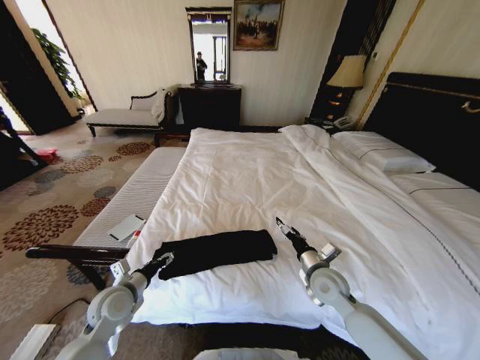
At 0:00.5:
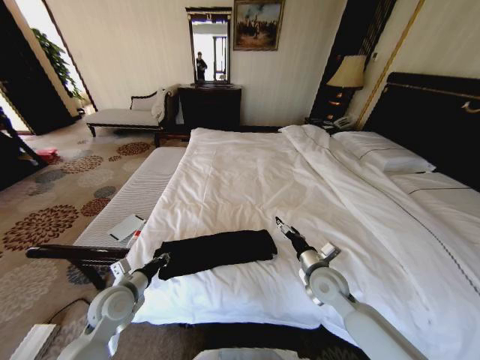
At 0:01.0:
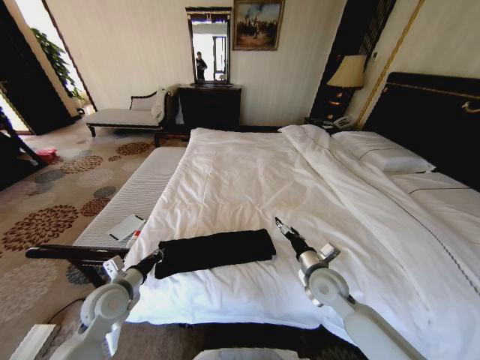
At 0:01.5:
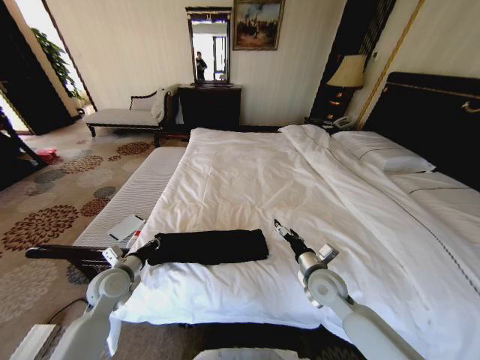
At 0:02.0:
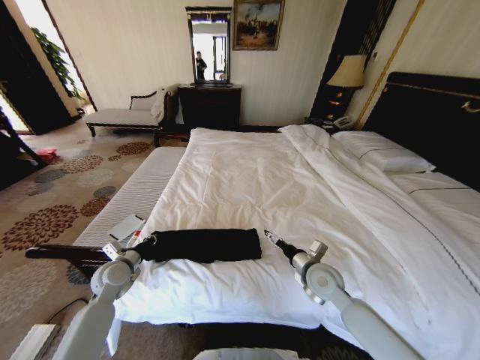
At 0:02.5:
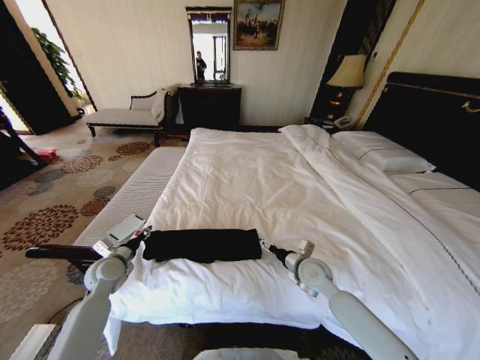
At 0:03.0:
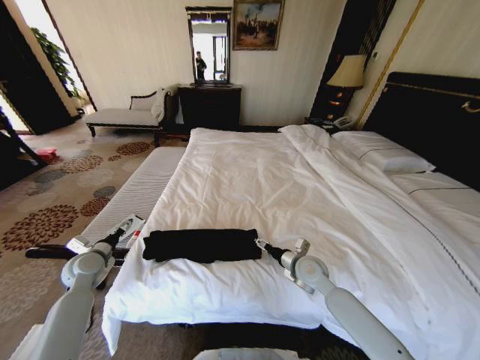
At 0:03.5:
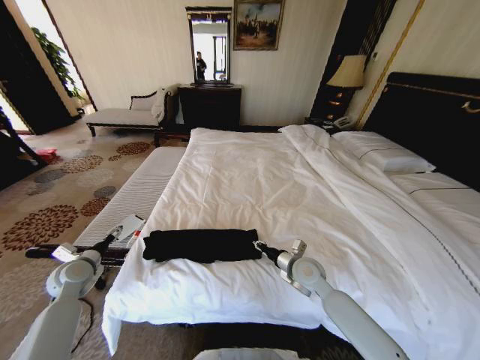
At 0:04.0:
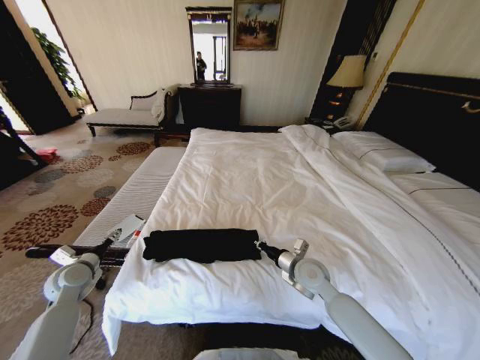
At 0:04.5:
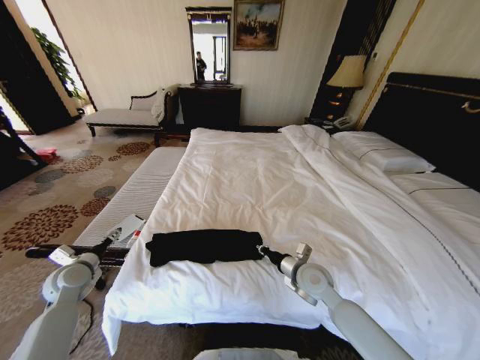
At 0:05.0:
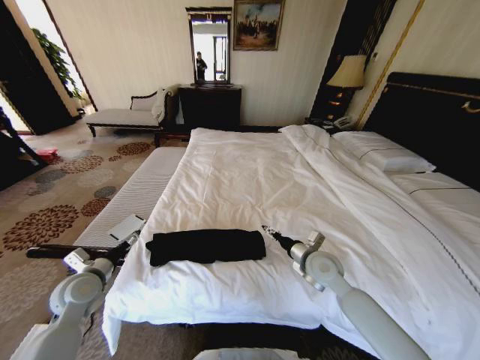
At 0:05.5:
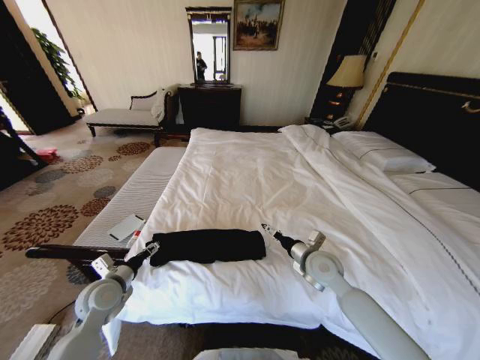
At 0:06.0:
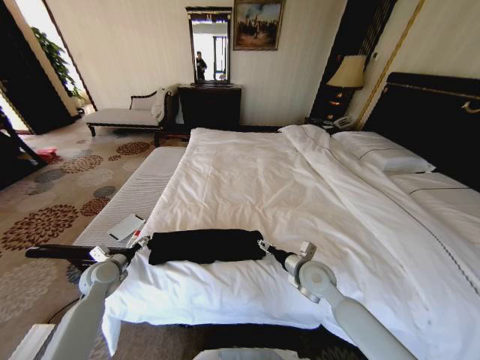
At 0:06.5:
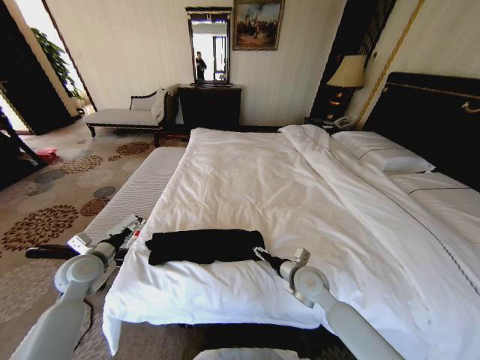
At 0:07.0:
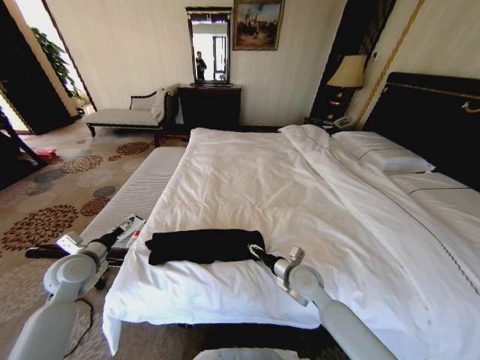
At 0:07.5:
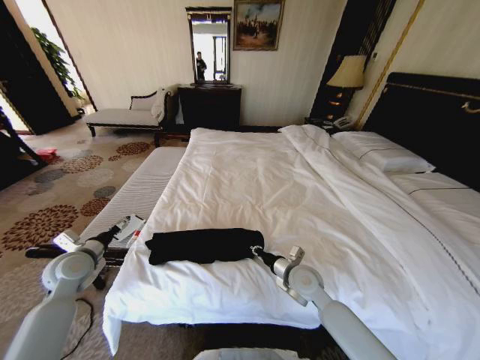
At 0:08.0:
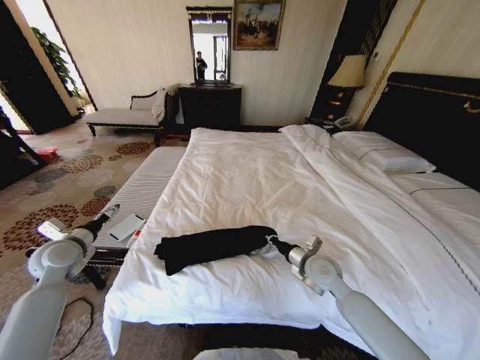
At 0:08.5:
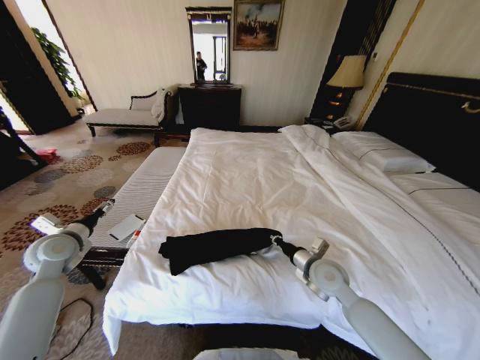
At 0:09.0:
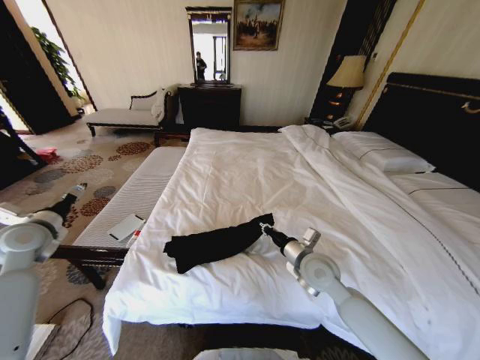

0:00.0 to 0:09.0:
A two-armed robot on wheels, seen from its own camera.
Task of the whole recording: Fold the clothes on the bed.
0:00.0 to 0:02.0: The left gripper moves forward, some 5 cm, and closes its fingers.
0:02.0 to 0:04.5: The left gripper travels to the left by roughly 10 cm, and opens, while the right gripper closes.
0:04.5 to 0:07.0: The right gripper opens its fingers. The left gripper goes roughly 5 cm upward.
0:07.0 to 0:09.0: The right gripper travels upward by some 5 cm, and closes. Meanwhile the left gripper shifts about 10 cm upward and to the left.

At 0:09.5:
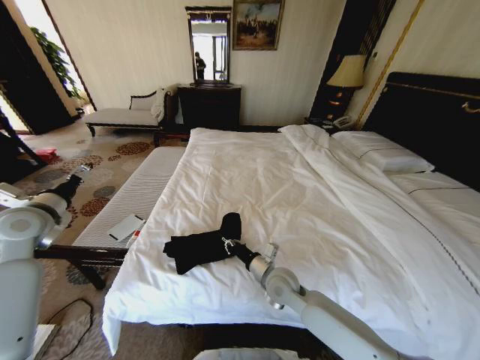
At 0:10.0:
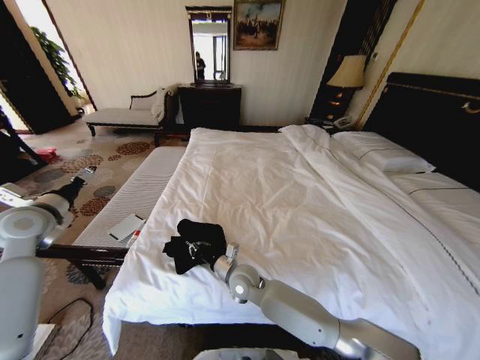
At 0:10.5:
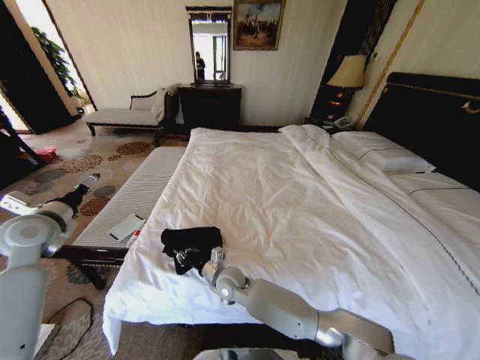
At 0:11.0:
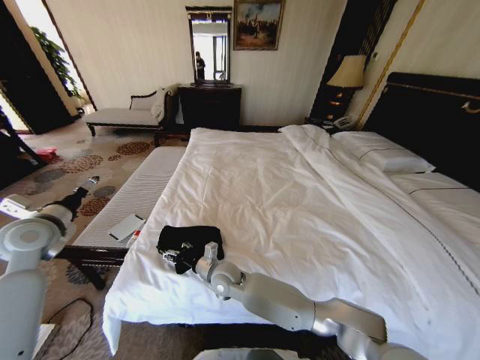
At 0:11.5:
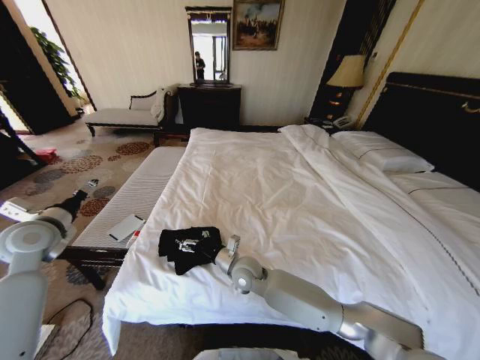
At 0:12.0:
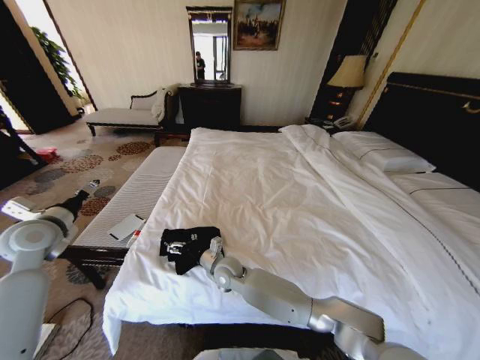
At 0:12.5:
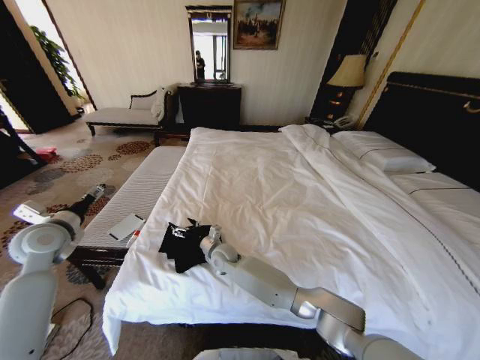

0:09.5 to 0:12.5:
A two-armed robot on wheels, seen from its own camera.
Task of the whole recording: Fold the clothes on the bed.
0:09.5 to 0:11.0: The right gripper moves to the left, approximately 15 cm, and opens.
0:11.0 to 0:12.5: The right gripper is displaced forward by approximately 10 cm, and opens up.

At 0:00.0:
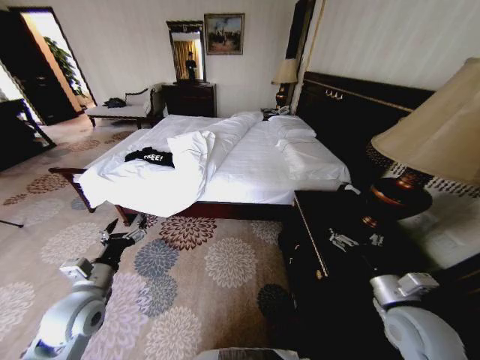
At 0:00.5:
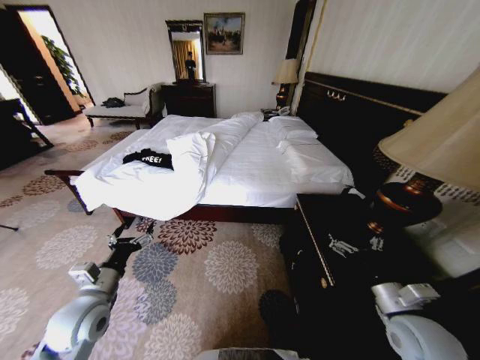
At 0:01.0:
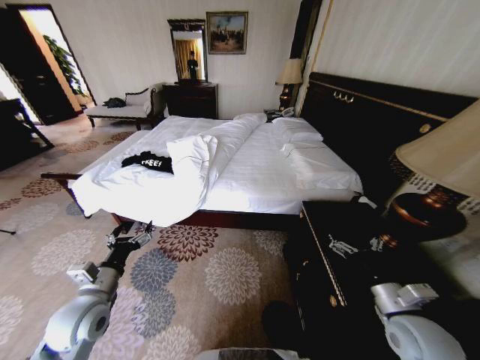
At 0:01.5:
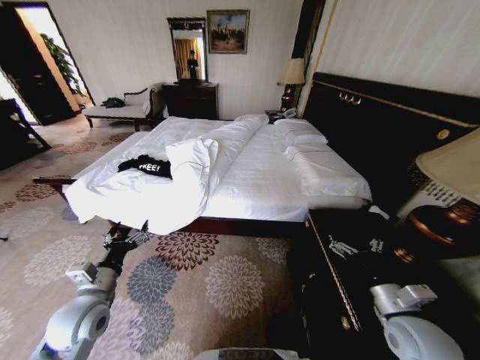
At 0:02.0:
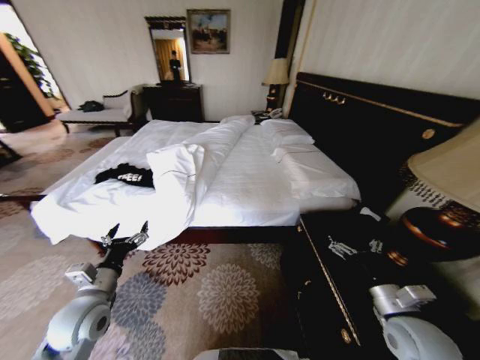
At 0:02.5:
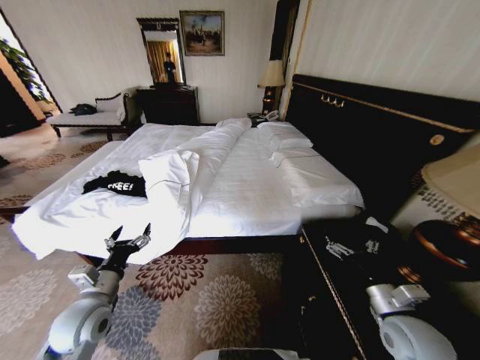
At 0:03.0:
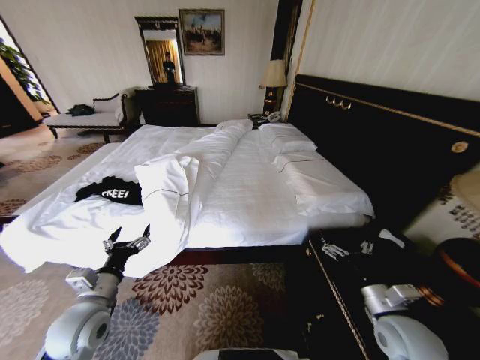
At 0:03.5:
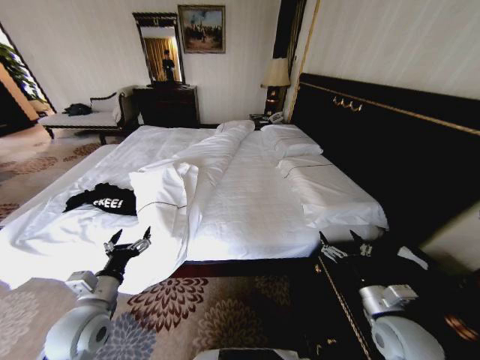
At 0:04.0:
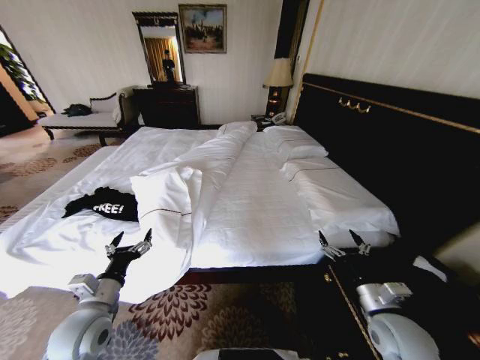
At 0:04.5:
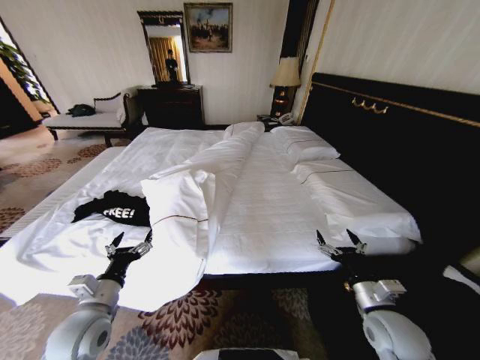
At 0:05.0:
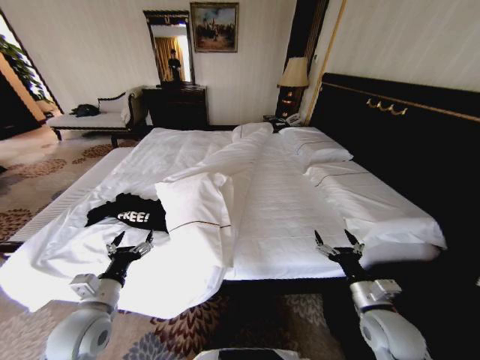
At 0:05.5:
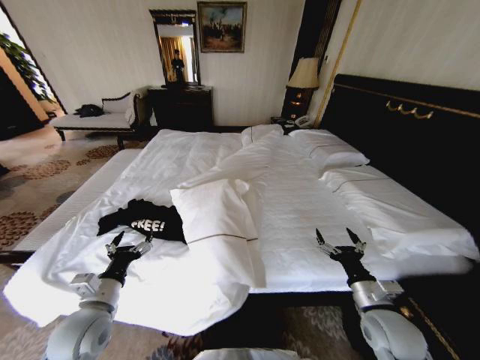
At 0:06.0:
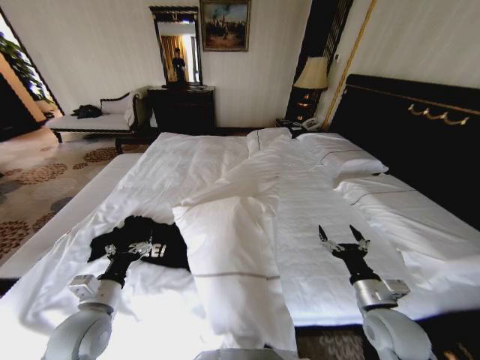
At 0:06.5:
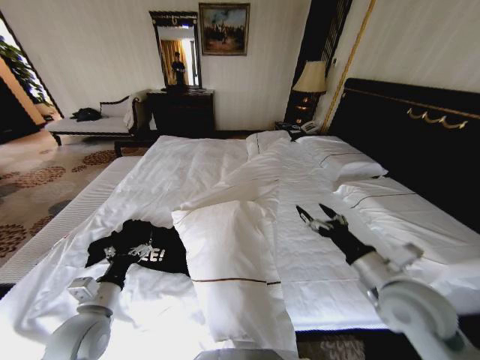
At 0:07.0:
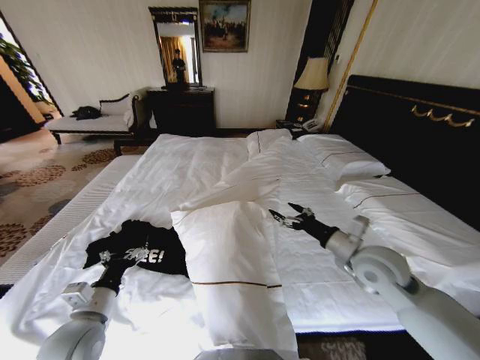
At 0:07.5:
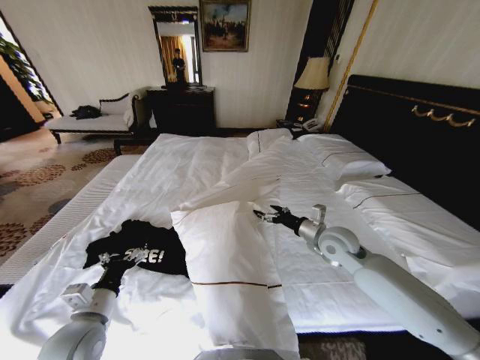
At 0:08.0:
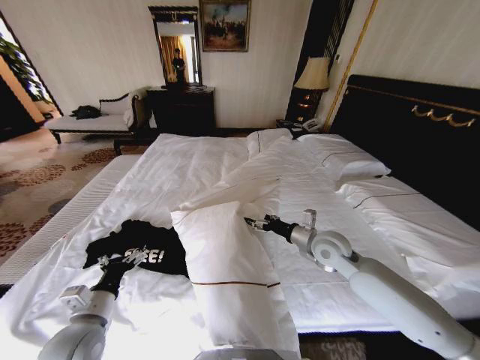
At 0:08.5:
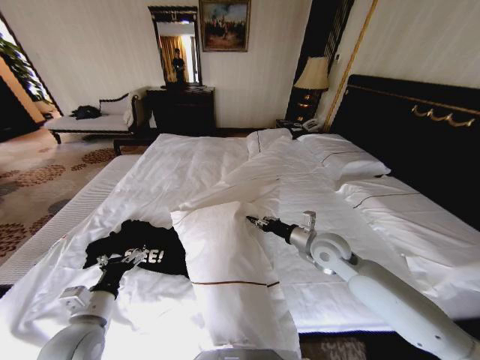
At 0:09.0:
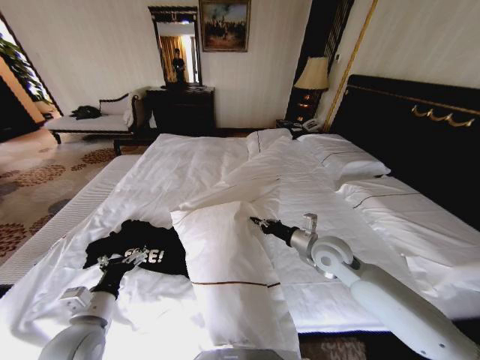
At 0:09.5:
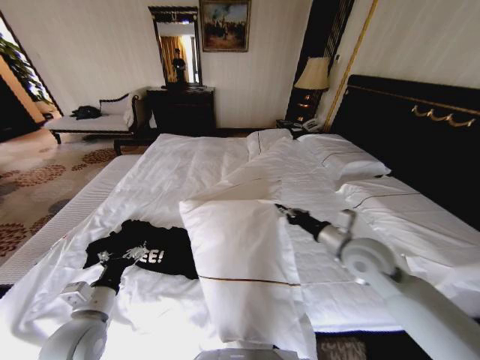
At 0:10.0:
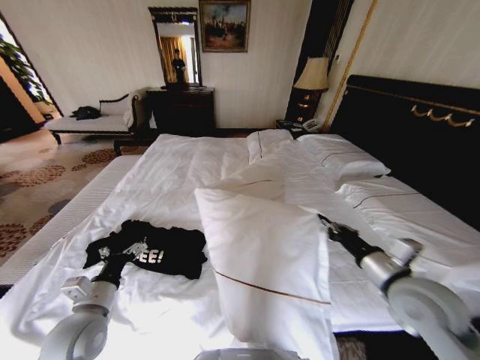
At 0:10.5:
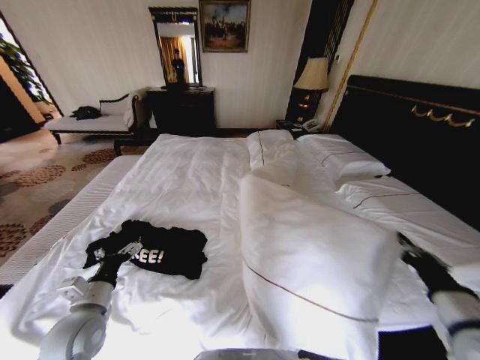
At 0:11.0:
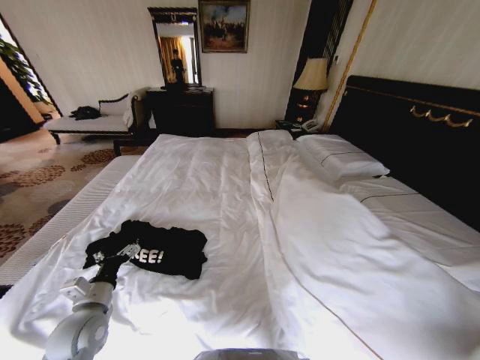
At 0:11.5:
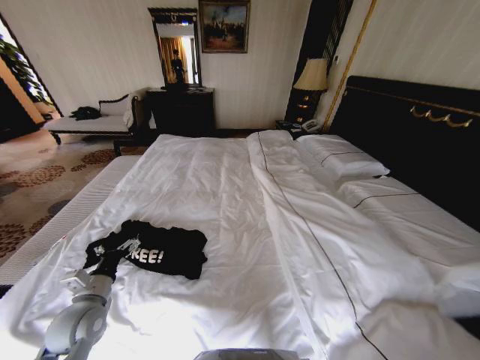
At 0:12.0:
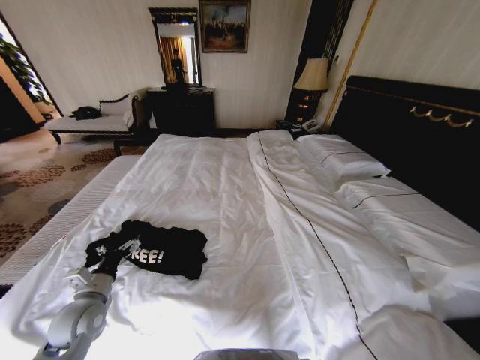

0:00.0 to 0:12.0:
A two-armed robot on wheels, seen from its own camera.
Task of the whole recording: Fold the clothes on the bed.
0:06.0 to 0:08.0: The right gripper travels forward and to the left by some 20 cm.
0:08.0 to 0:10.0: The right gripper moves backward and to the right, approximately 15 cm, and closes up.
0:10.0 to 0:12.0: The left gripper ends up some 5 cm from where it was. The right gripper heads backward and downward, covering about 40 cm.

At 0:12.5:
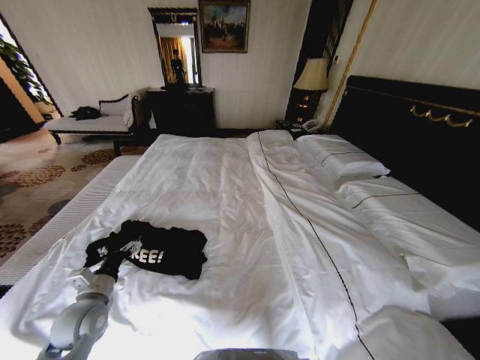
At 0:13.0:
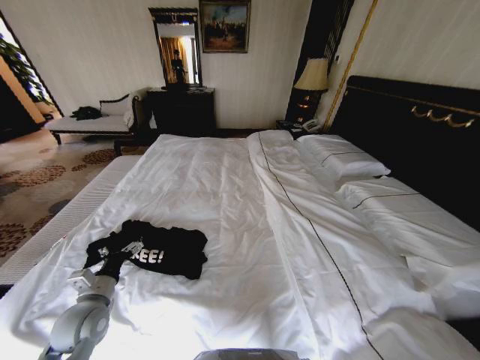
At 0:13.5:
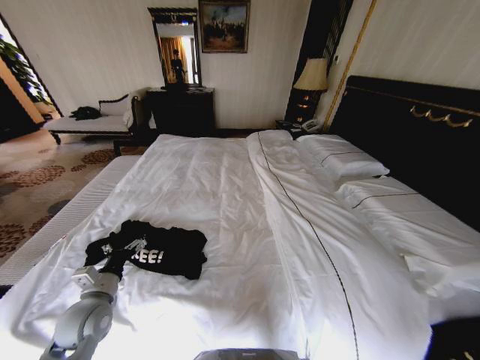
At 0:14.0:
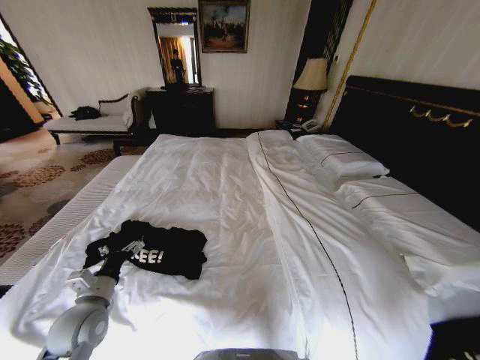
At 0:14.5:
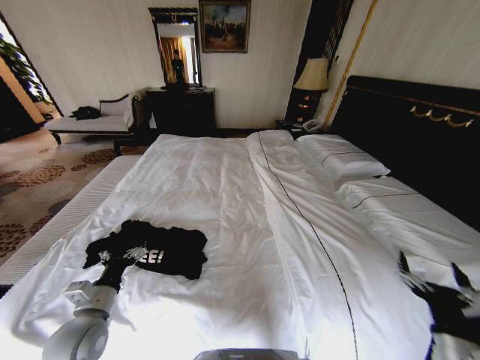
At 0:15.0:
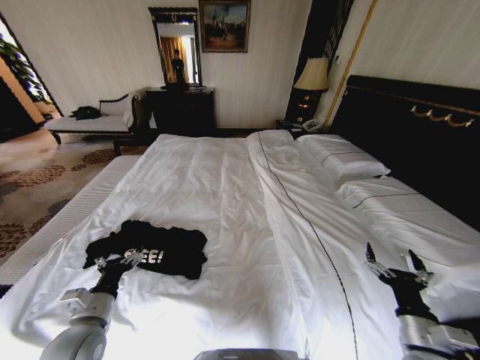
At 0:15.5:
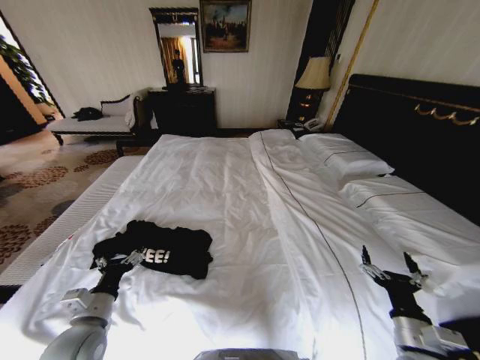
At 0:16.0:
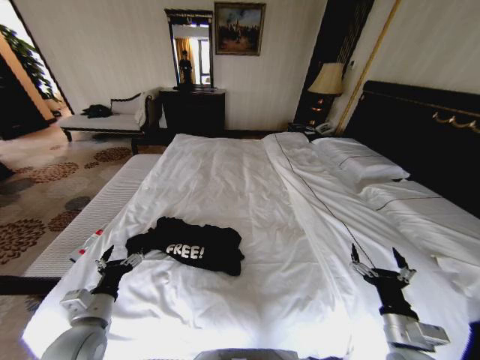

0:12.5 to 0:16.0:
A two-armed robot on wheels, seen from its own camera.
Task of the whole recording: Fold the clothes on the bed.
0:12.5 to 0:14.5: The left gripper changes place by approximately 5 cm, while the right gripper travels forward and upward by roughly 20 cm, and opens its fingers.
0:14.5 to 0:16.0: The right gripper shifts some 5 cm to the left.
